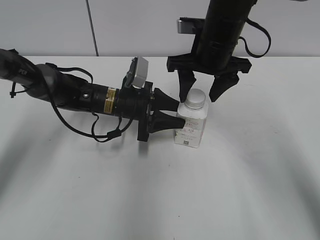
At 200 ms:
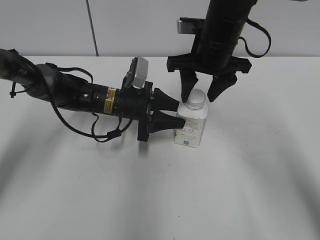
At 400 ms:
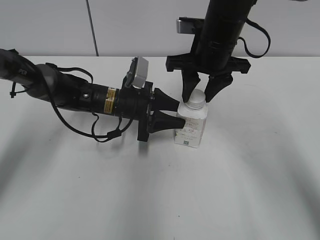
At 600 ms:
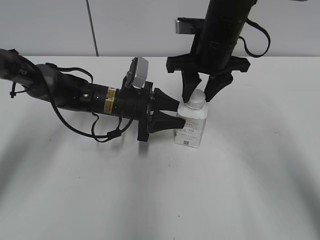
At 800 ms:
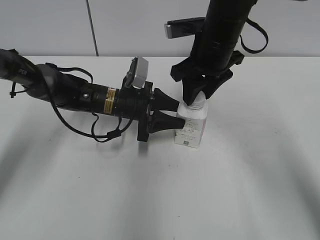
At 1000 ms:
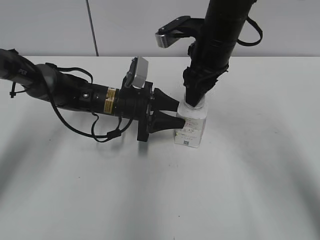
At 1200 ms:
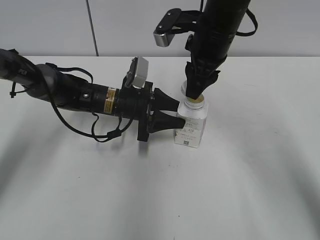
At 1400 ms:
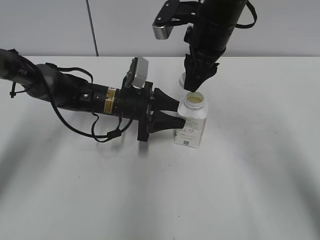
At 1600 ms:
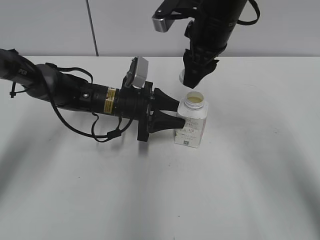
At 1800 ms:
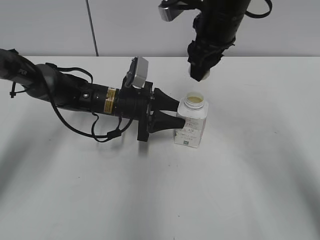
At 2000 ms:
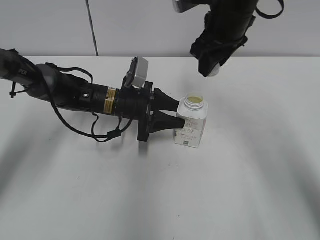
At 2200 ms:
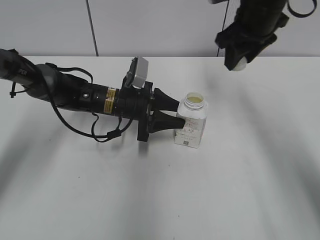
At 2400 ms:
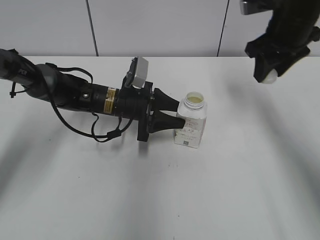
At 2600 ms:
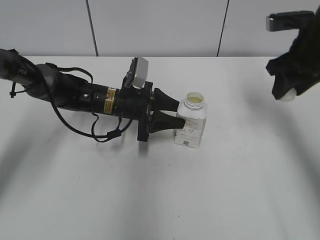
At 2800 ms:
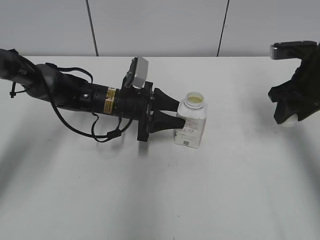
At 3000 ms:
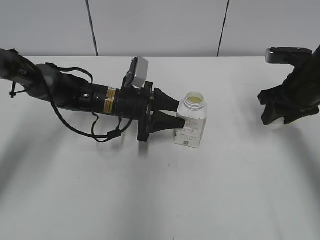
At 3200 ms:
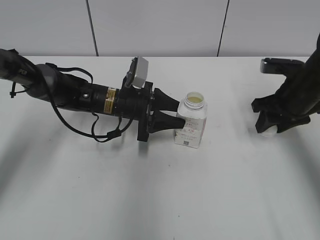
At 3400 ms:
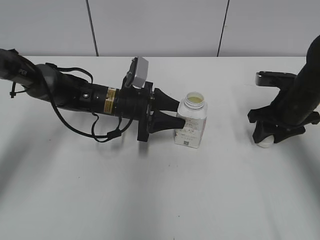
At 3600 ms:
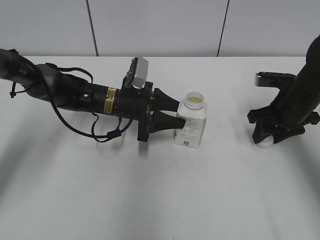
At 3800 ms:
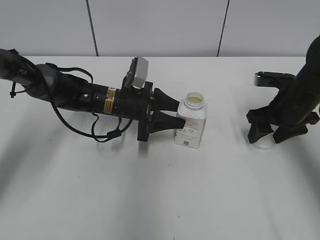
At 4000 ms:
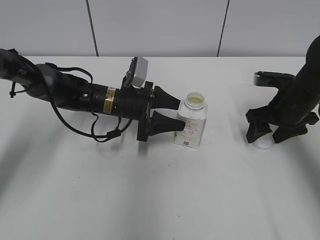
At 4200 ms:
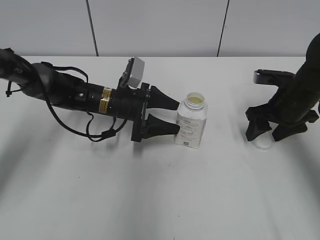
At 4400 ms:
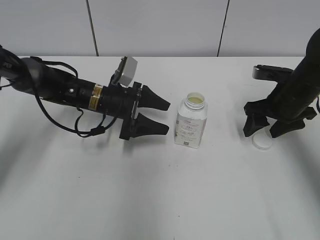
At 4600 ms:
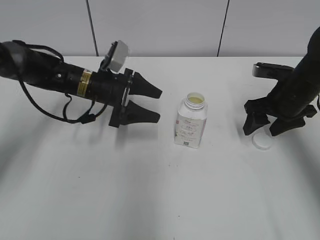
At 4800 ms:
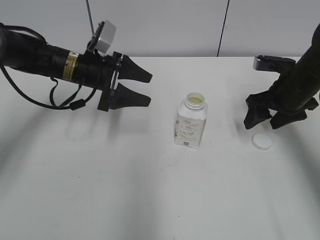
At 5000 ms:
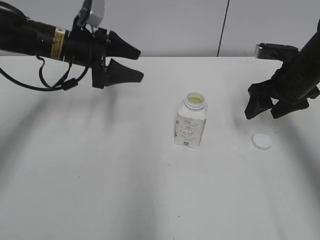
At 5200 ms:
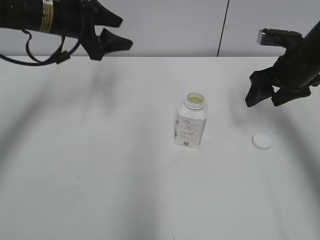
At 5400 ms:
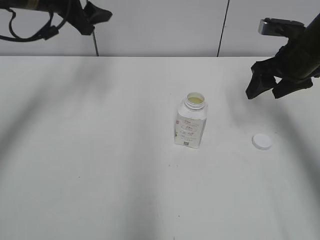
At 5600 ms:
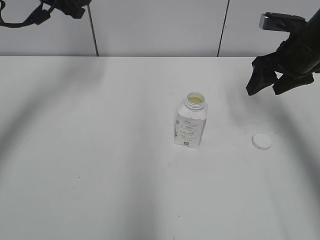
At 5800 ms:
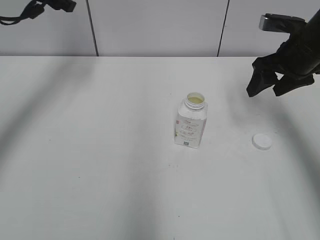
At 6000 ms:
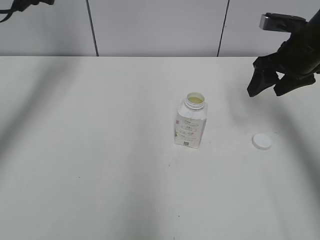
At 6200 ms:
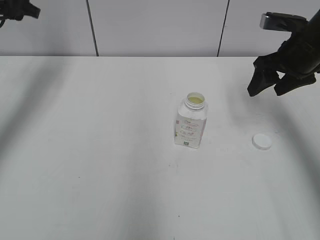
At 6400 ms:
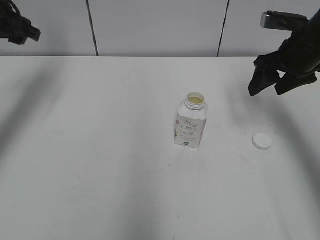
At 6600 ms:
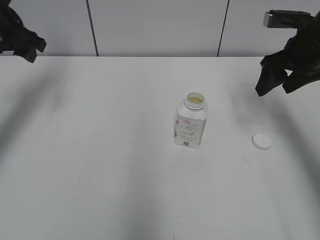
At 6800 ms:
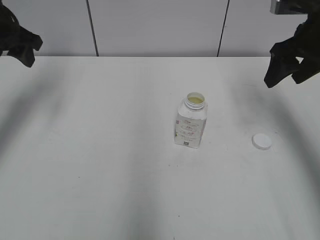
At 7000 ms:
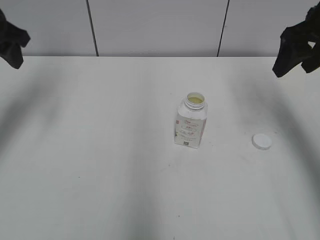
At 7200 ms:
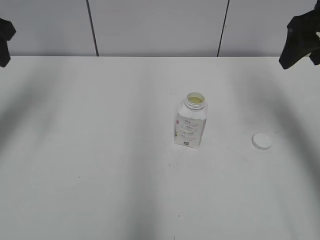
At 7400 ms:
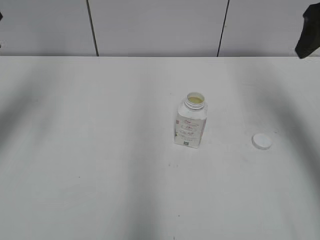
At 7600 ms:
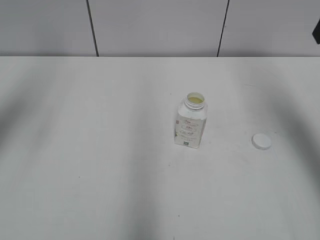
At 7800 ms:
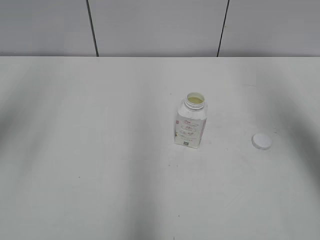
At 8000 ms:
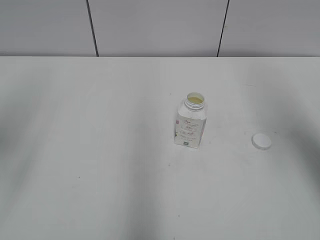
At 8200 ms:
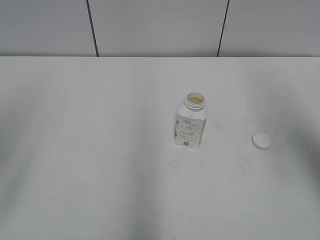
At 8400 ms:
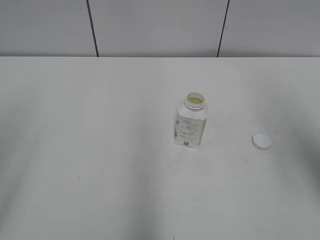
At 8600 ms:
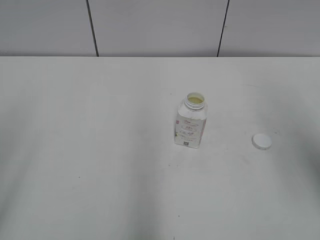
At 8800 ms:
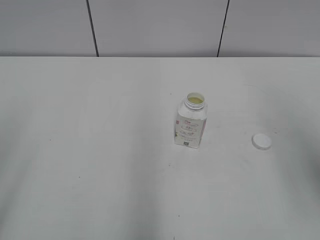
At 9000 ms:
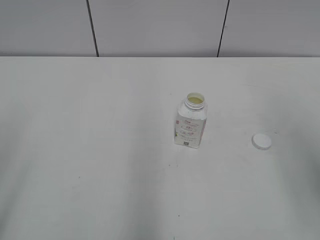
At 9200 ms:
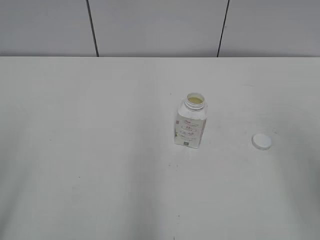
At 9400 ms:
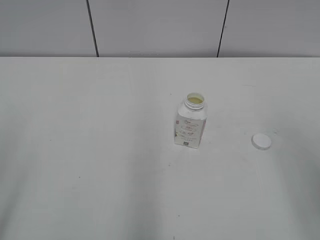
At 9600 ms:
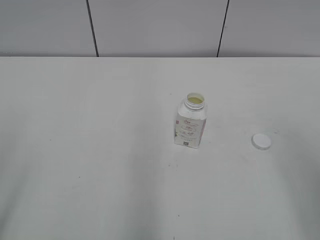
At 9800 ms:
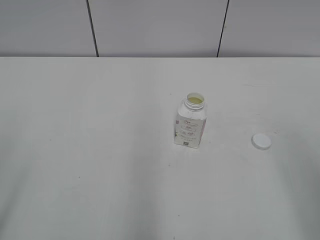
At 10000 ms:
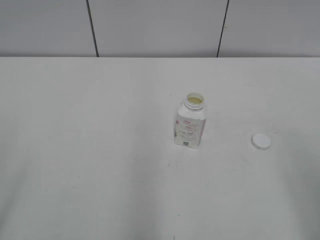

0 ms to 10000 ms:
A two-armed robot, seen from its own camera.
Step, 1600 ms to 3600 ms: Place the bottle cap on the table with the right gripper.
Step, 3800 ms to 4000 ms: Place the bottle on the table with the left gripper.
0 ms to 1400 ms: The right gripper closes.
1400 ms to 2800 ms: The right gripper moves to the right, some 20 cm.
2800 ms to 4200 ms: The left gripper opens. Meanwhile the right gripper moves downward, some 5 cm, and opens its fingers.
4200 ms to 5800 ms: The left gripper travels upward and to the left by approximately 25 cm. Meanwhile the right gripper heads upward, covering approximately 10 cm.
5800 ms to 7200 ms: The right gripper moves upward, approximately 10 cm. Meanwhile the left gripper moves backward and to the left, about 10 cm.
7200 ms to 8600 ms: The grippers both shift backward by approximately 20 cm.
8600 ms to 10000 ms: The right gripper moves backward and downward, some 15 cm.

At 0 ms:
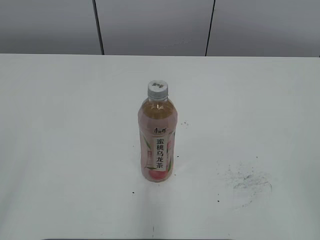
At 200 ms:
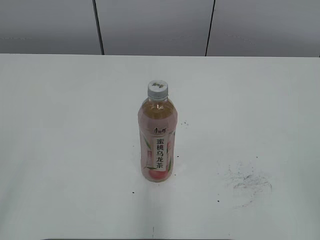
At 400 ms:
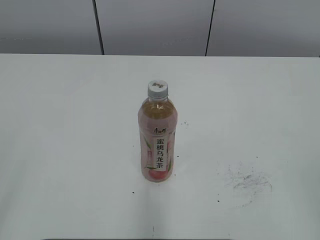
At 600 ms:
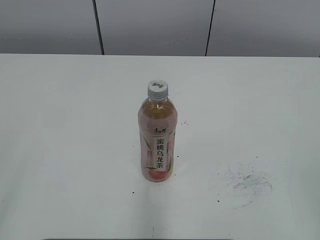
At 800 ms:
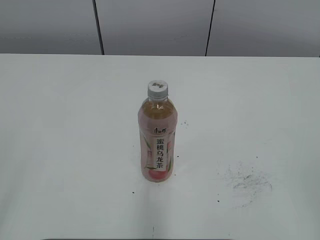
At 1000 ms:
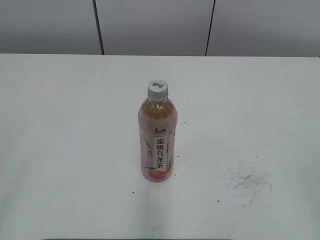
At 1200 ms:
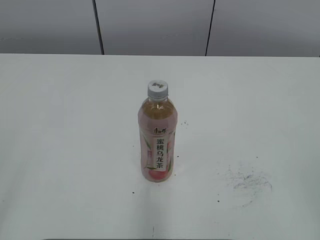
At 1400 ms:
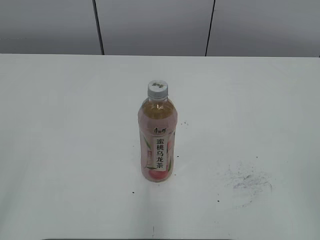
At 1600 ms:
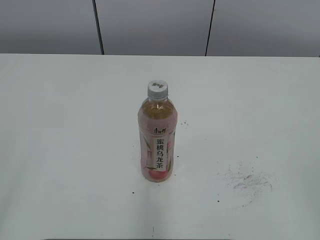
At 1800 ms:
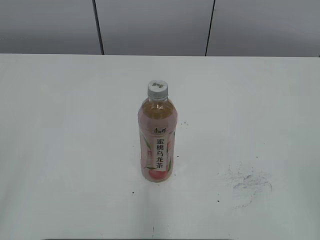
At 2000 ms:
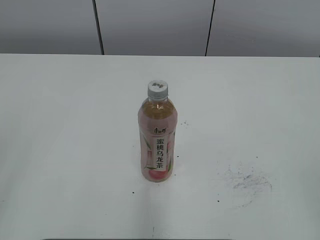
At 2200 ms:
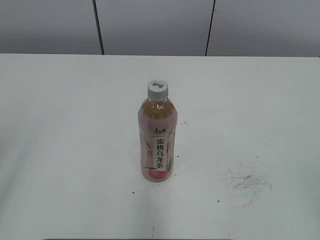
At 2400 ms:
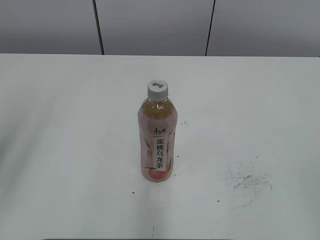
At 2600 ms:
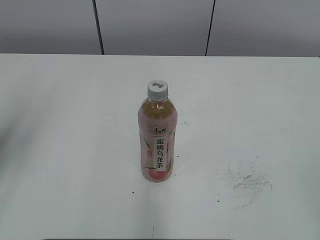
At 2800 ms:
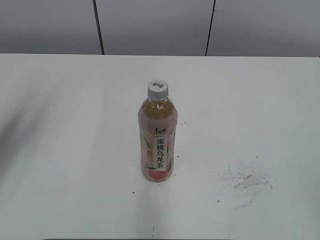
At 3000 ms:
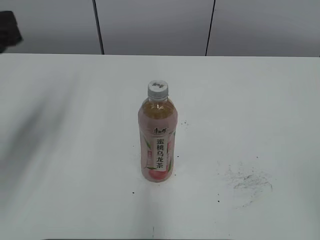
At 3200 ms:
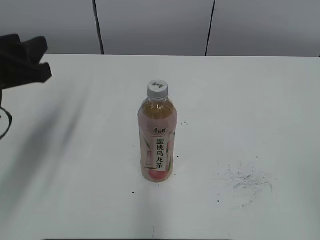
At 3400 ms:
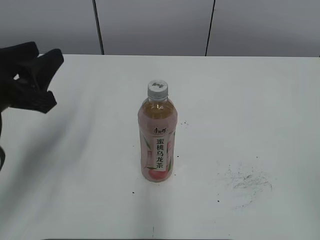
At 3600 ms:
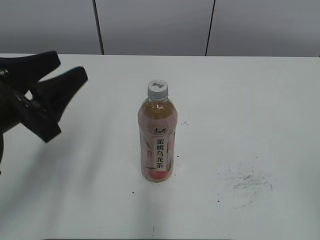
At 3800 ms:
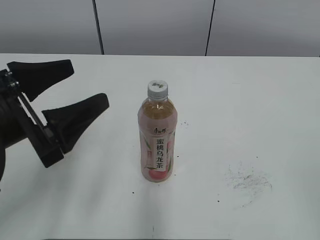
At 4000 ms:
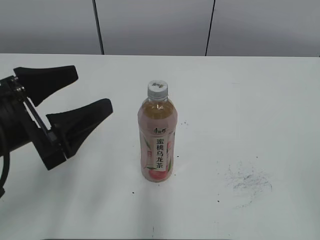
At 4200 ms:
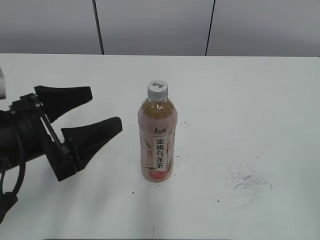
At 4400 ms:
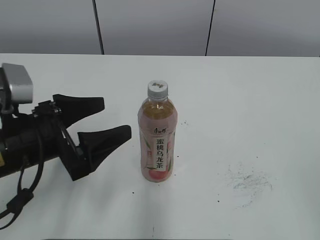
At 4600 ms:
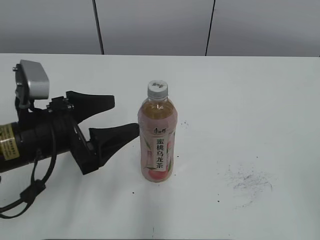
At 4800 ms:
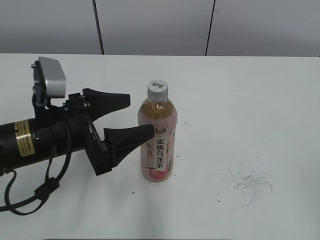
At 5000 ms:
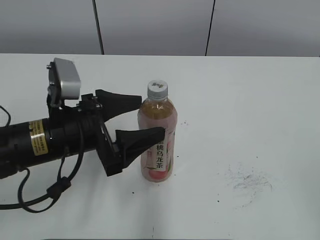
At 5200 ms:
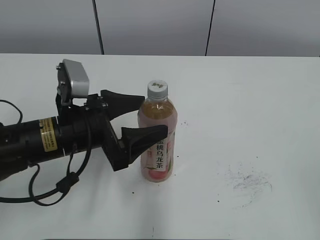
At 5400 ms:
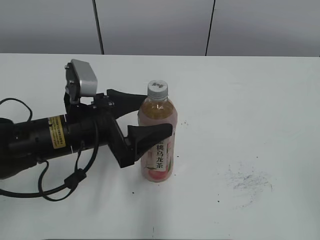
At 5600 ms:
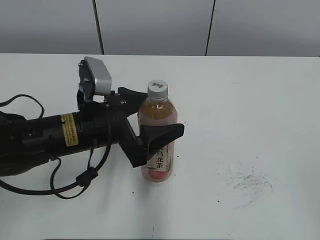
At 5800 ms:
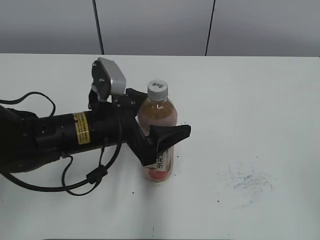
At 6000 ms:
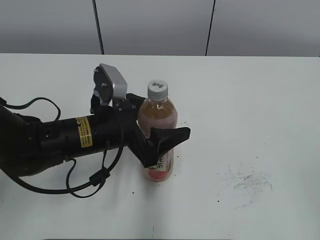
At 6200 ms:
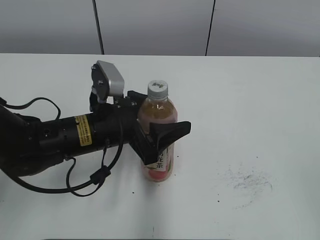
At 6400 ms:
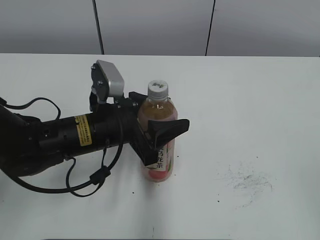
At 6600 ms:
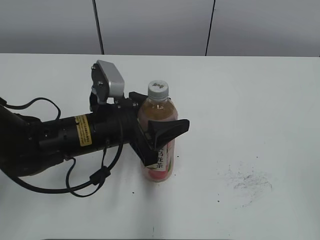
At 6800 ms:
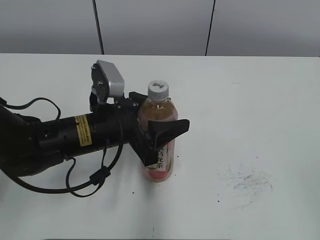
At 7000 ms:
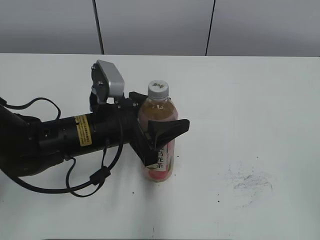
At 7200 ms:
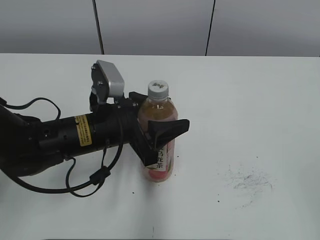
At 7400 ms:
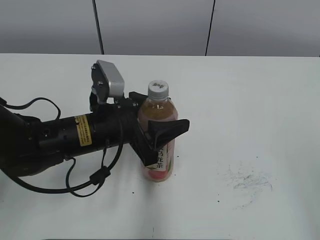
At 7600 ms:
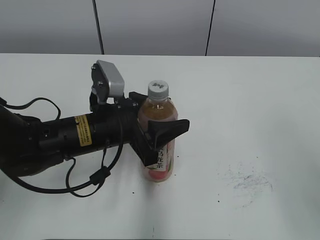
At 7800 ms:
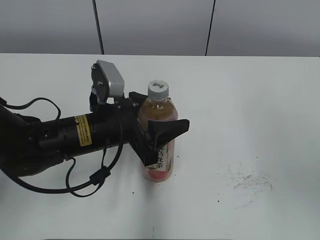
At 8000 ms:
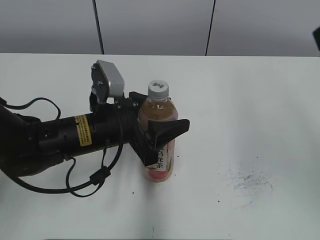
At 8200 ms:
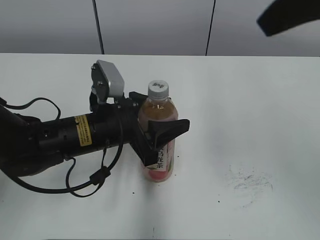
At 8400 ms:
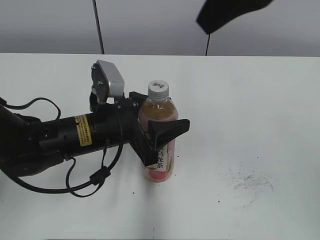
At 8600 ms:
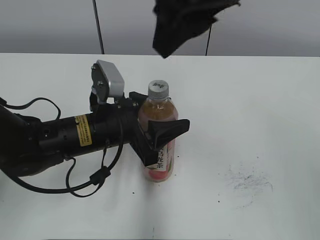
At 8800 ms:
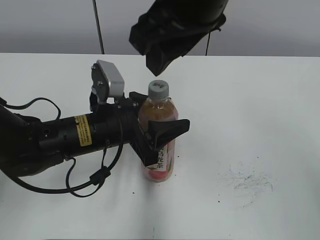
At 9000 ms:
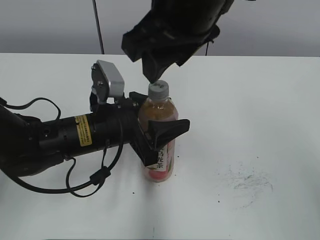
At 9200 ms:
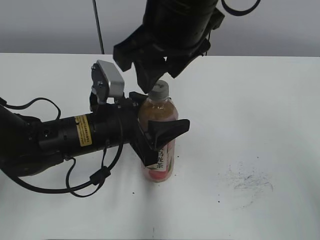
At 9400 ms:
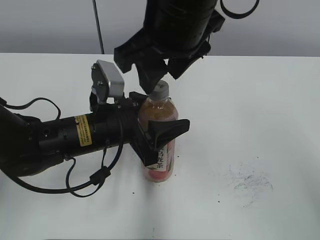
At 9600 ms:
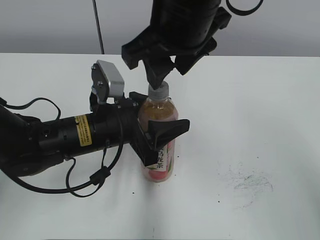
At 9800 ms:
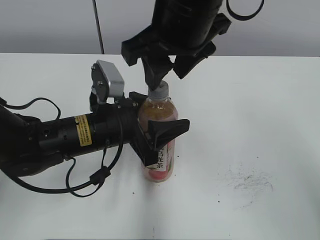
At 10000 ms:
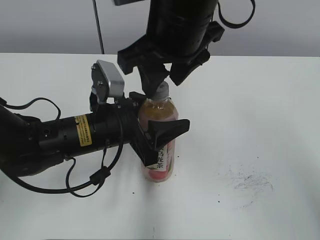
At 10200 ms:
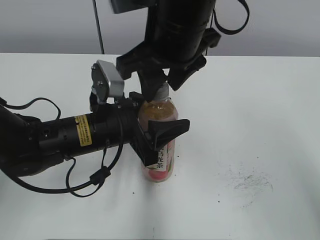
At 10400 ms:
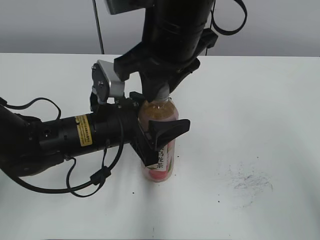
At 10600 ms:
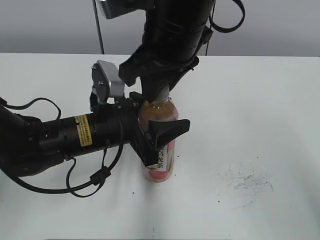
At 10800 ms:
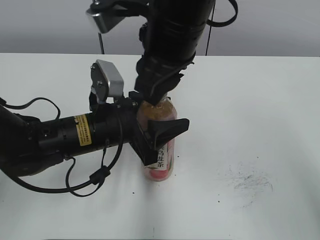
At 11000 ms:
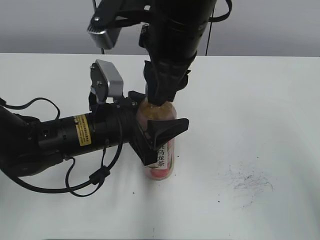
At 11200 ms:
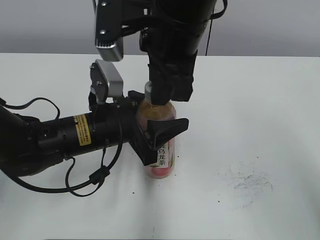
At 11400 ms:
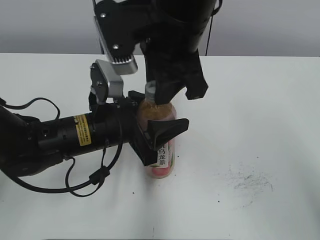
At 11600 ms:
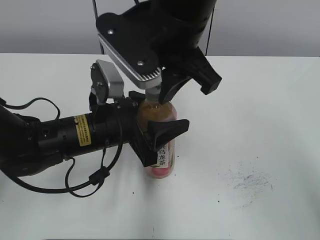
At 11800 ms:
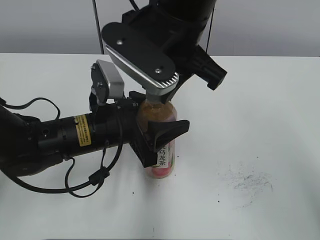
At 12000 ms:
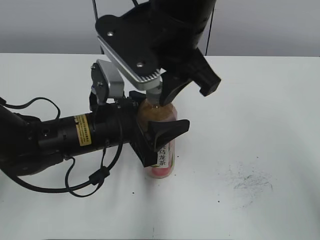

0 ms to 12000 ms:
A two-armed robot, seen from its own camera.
Step, 0 ms to 6600 ms: Grab the Peach Oolong Tea with the left hand.
1600 ms to 3000 ms: The left gripper is displaced forward by approximately 25 cm, and closes up.
3000 ms to 4400 ms: The left gripper is displaced downward and to the right by about 15 cm, and opens up.
4400 ms to 6000 ms: The left gripper goes about 10 cm to the right and forward.
6000 ms to 7600 ms: The left gripper closes up. Meanwhile the right gripper moves forward, roughly 5 cm.
7600 ms to 9000 ms: The right gripper moves to the left and forward, about 30 cm.
9000 ms to 10400 ms: The right gripper shifts by approximately 5 cm, and closes its fingers.
